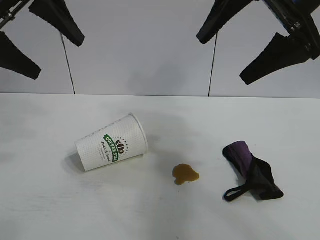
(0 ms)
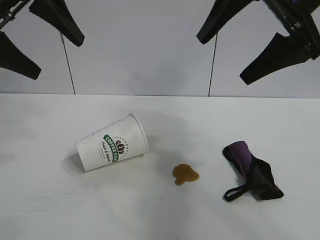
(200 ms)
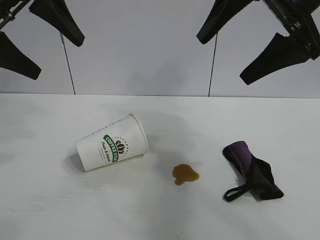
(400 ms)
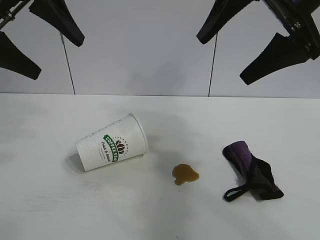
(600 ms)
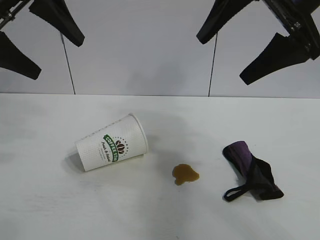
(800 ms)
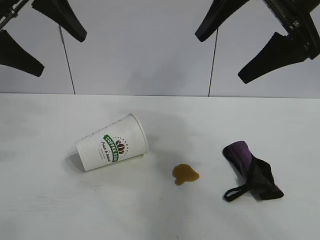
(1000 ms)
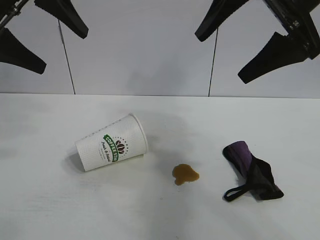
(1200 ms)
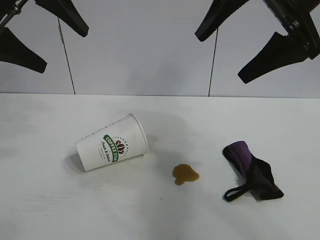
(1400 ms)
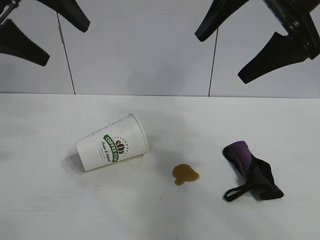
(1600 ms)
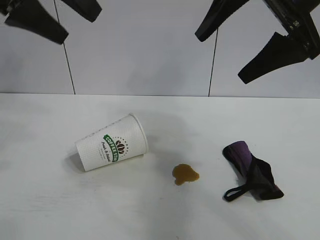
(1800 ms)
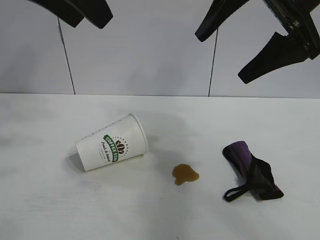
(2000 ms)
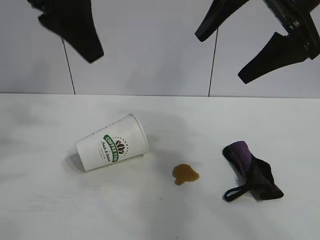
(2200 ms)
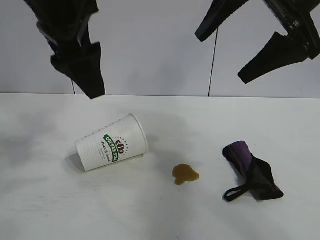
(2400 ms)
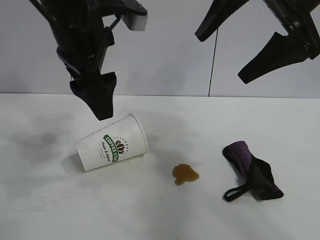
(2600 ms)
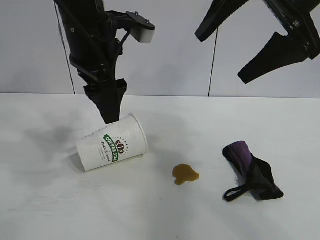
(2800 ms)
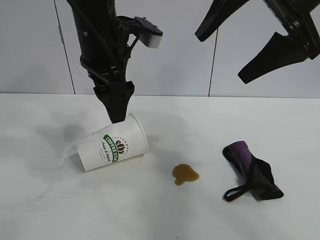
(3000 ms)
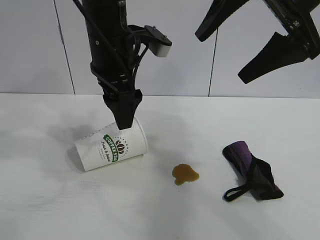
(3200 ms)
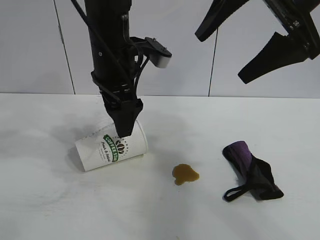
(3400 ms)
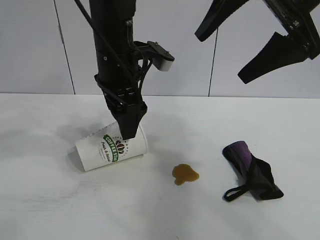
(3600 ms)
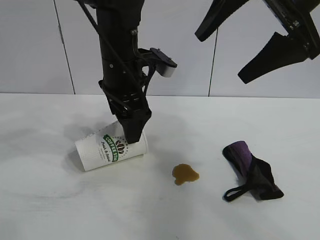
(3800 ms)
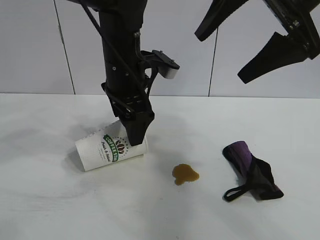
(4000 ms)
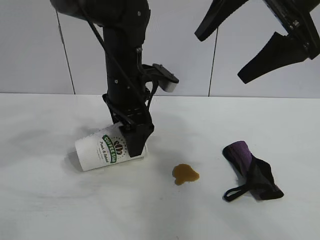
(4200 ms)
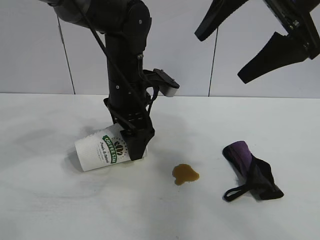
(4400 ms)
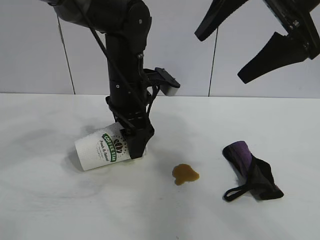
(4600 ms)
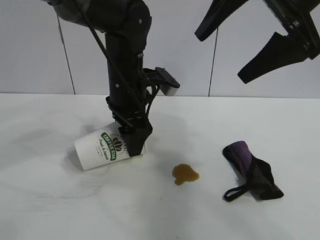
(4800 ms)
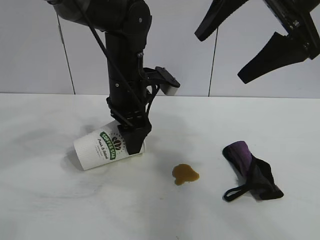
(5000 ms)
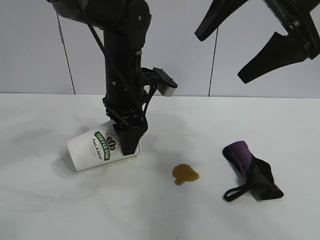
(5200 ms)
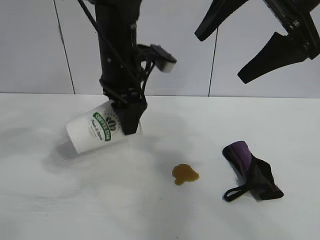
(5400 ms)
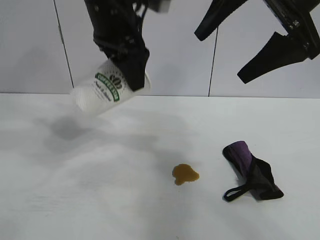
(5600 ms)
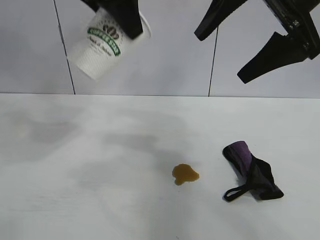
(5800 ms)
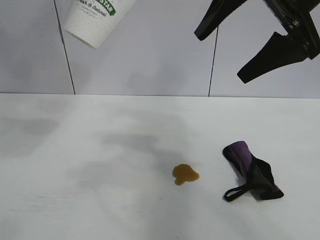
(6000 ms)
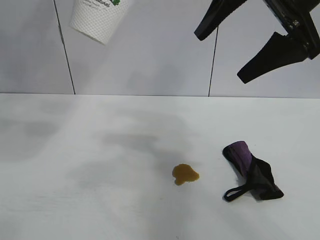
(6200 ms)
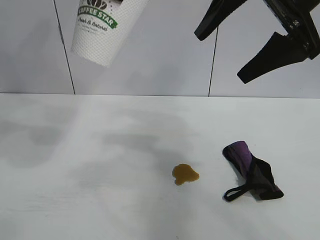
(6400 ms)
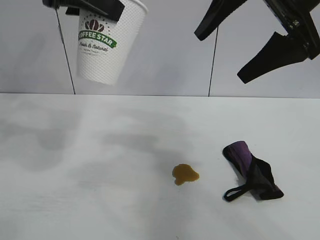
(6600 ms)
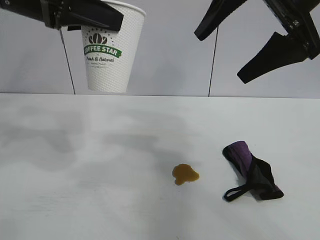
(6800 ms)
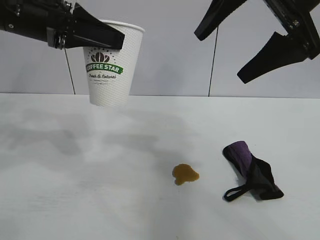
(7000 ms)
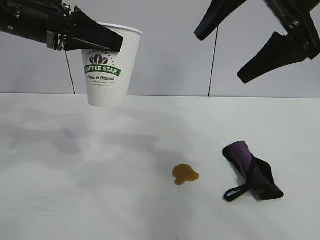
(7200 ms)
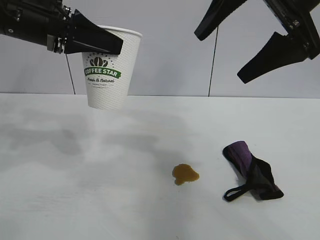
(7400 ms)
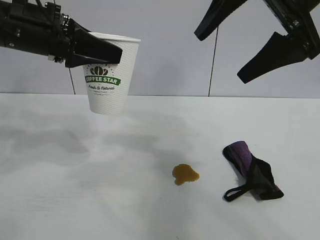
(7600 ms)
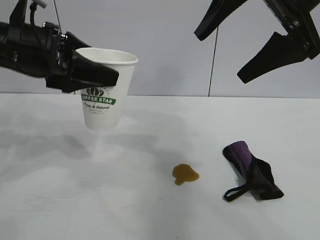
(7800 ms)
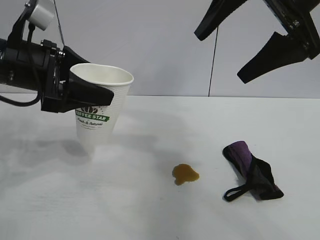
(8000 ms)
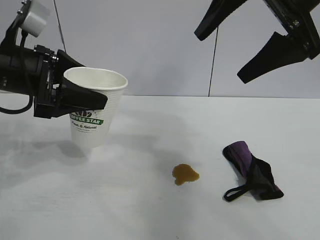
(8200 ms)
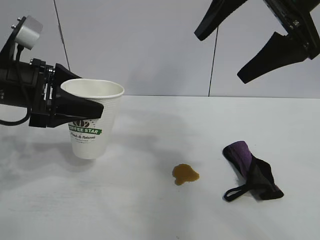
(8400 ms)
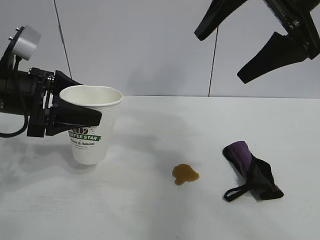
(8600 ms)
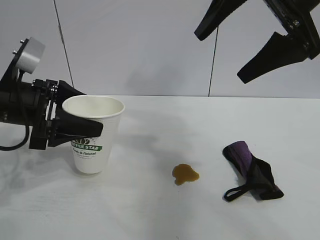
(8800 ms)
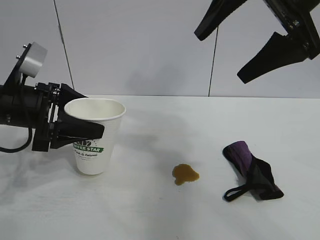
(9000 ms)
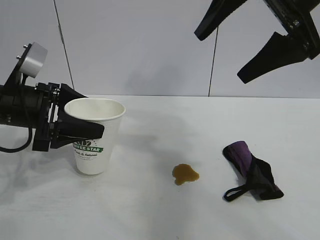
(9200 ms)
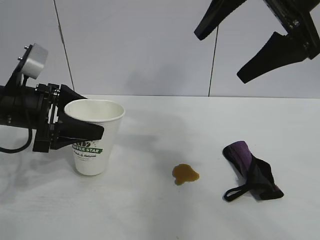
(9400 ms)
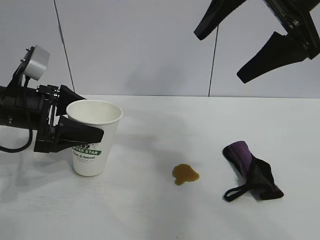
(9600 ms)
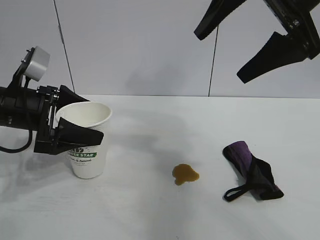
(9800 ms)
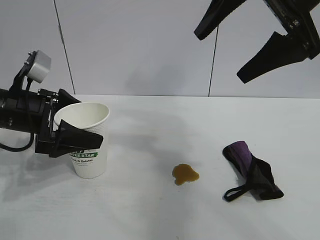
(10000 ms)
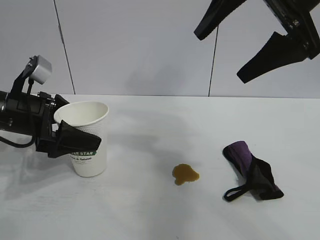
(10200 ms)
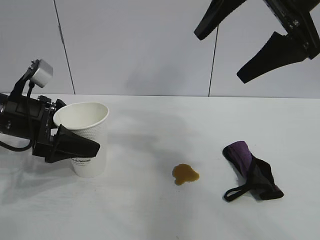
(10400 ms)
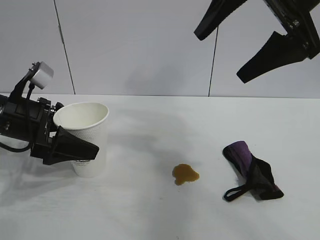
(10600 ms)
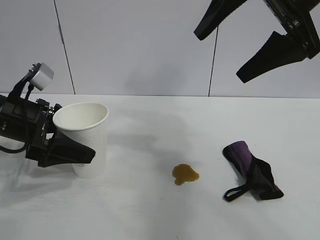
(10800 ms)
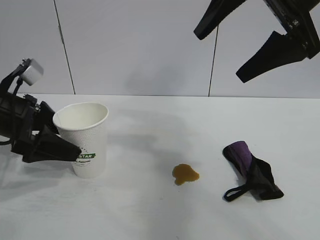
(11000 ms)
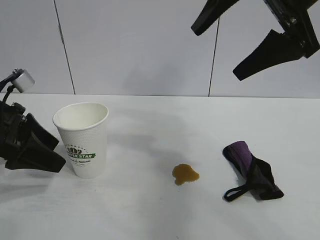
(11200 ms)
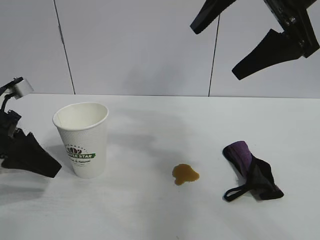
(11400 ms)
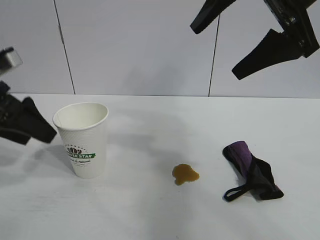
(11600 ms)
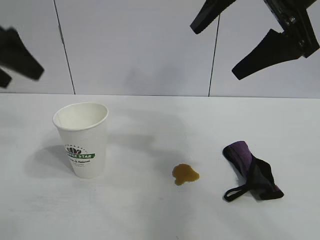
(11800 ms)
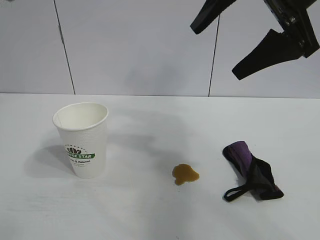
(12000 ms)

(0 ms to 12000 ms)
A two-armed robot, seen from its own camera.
Task of the whole recording: the left gripper pick up the fallen cup and place it upright, the right gripper grasp the black rag and wipe the stain on the table, the right gripper put the black rag back in its original position.
Step, 1000 ms - 4800 ms: Grasp the paper cup with left gripper.
Step, 5200 ms - 10200 ms: Stand the paper cup upright with left gripper.

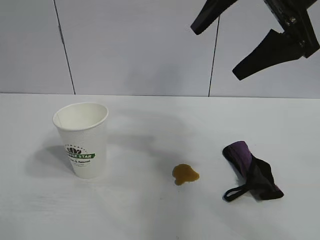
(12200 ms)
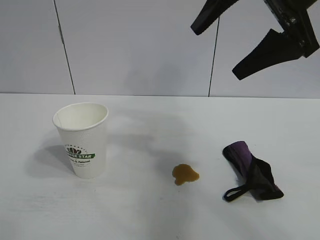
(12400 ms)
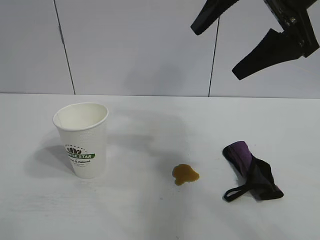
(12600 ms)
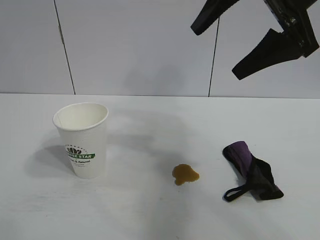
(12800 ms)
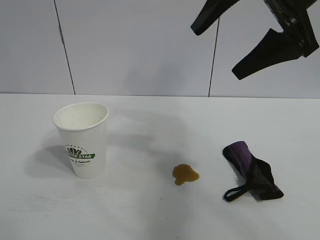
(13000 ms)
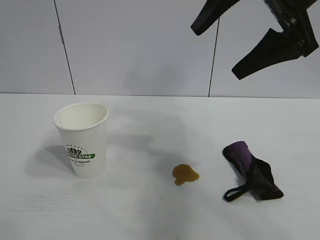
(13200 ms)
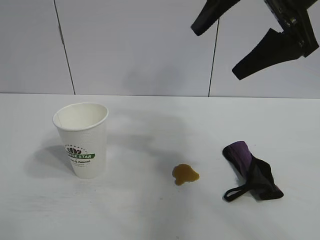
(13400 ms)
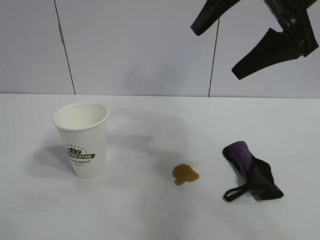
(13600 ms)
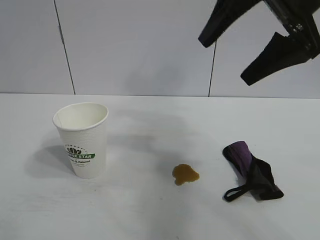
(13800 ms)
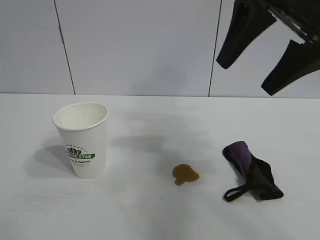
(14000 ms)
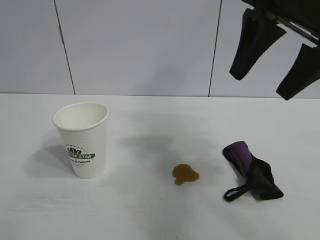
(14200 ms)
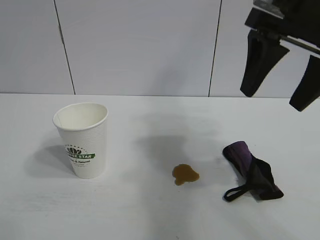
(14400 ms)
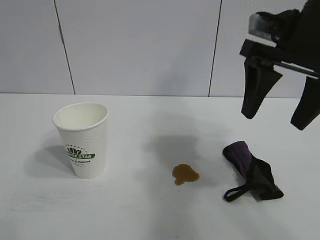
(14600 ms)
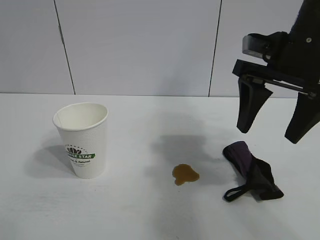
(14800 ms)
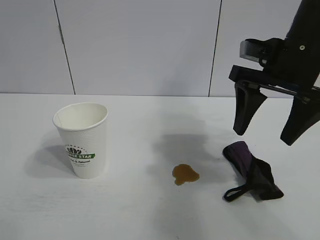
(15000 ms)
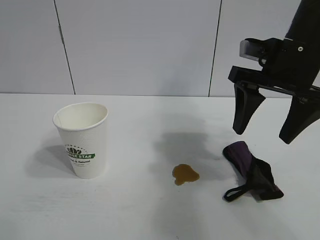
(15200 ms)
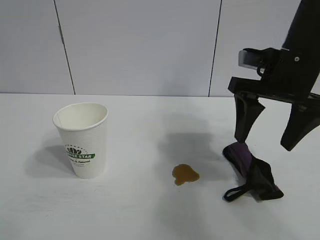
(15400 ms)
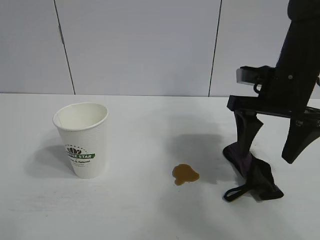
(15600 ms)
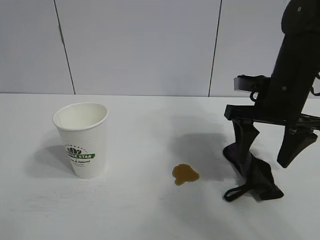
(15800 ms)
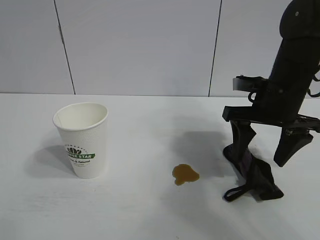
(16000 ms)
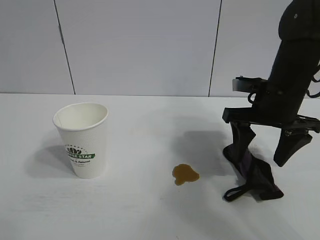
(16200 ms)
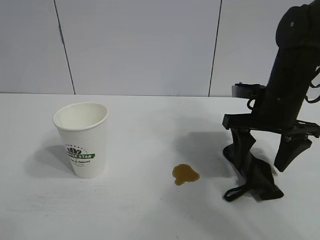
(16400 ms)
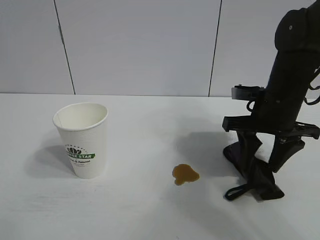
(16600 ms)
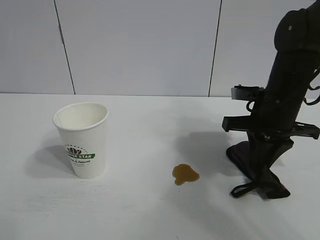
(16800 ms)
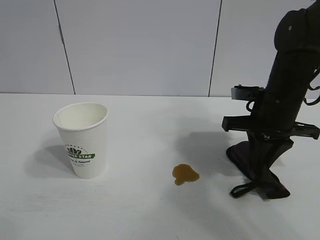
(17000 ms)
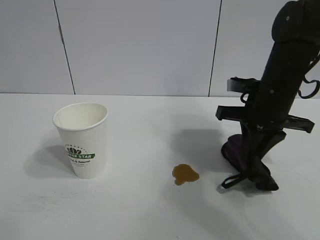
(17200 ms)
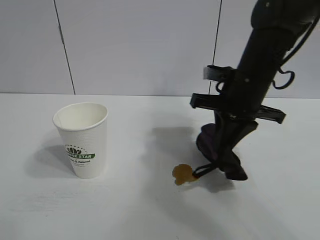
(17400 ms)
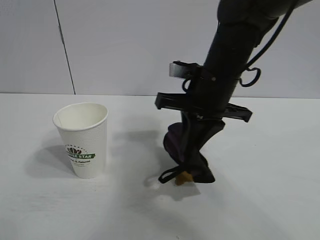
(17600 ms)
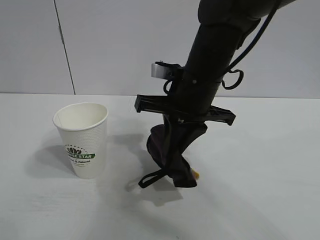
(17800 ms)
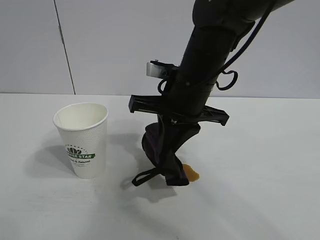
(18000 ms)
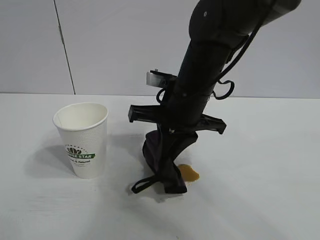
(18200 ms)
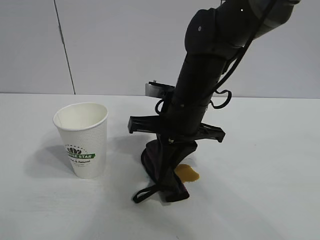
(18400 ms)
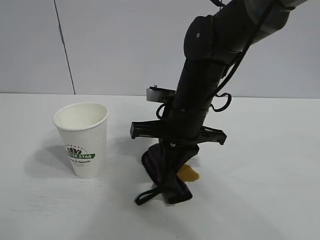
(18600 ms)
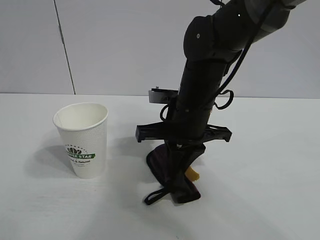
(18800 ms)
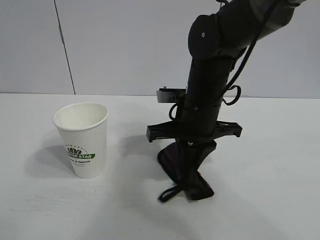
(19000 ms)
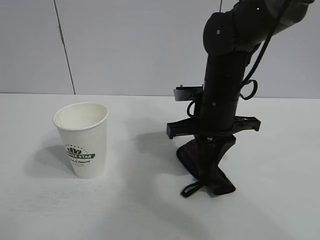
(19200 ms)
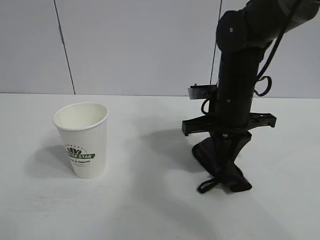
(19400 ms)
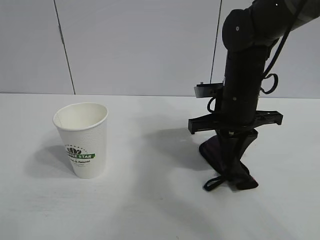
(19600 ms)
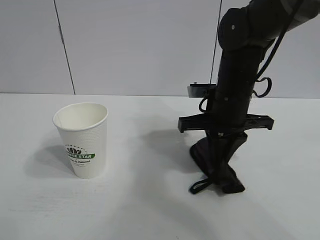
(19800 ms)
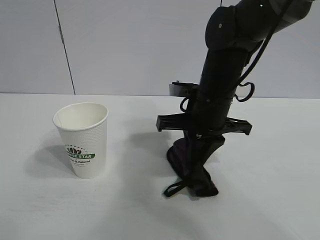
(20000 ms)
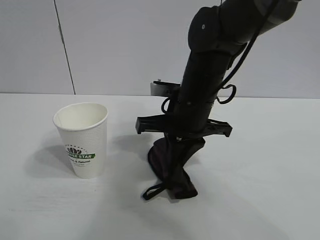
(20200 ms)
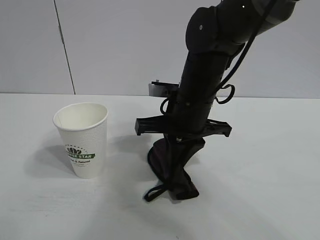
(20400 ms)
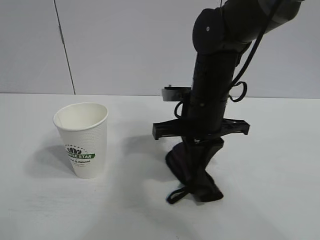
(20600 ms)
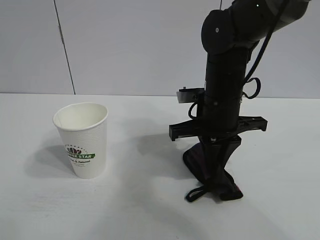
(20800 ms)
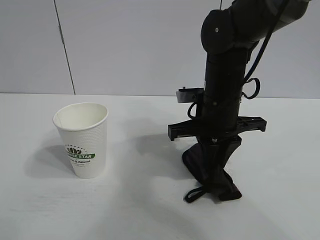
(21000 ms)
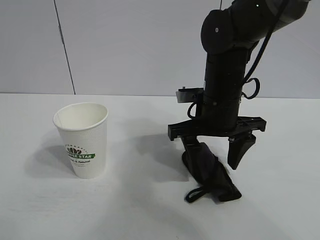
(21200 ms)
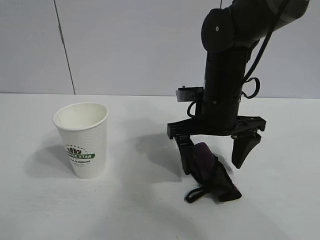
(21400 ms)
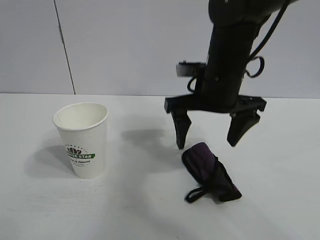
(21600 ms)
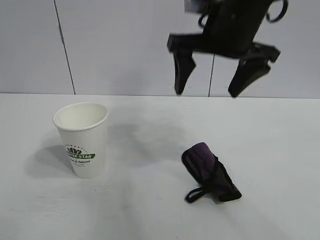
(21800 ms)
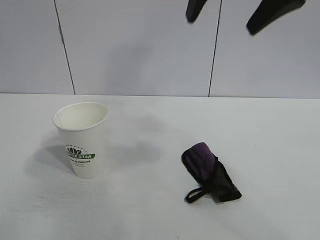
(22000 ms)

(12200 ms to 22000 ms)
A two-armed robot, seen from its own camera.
Task of the whole recording: the left gripper pick up the fallen cup and place it upright, the right gripper grasp the black rag and wipe the stain on the table, the right gripper put the black rag back in its original position.
Step, 12200 ms - 16800 ms: Grasp the rag with right gripper.
Step, 17000 ms - 20600 ms: Wipe the stains off the table with the rag with right gripper.
